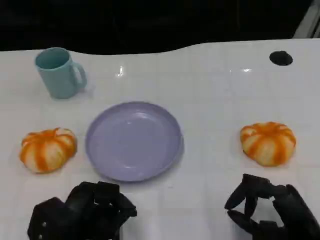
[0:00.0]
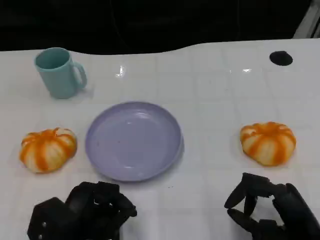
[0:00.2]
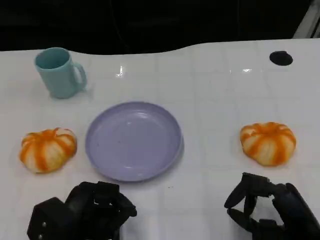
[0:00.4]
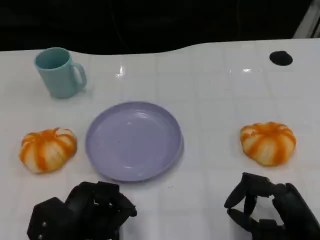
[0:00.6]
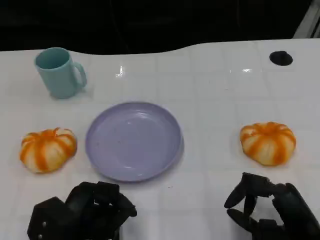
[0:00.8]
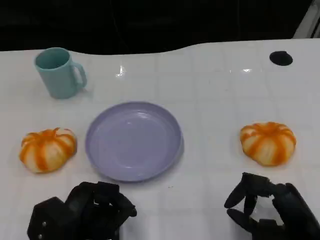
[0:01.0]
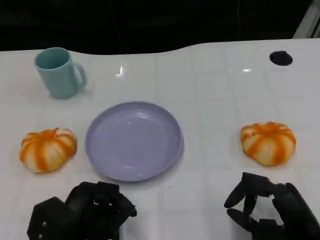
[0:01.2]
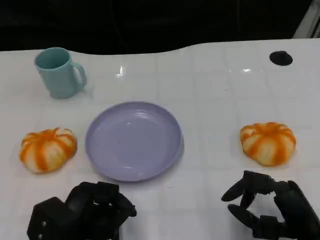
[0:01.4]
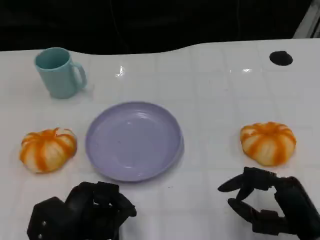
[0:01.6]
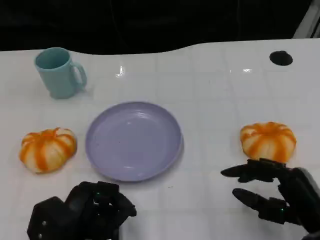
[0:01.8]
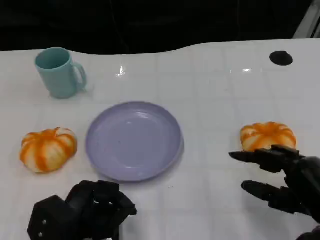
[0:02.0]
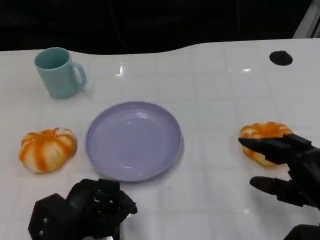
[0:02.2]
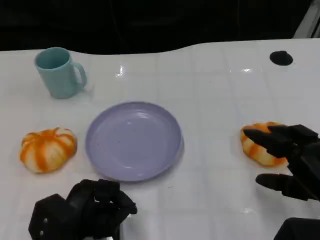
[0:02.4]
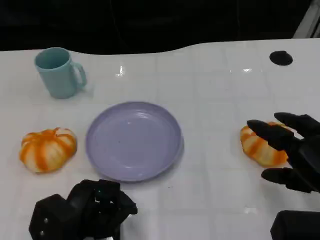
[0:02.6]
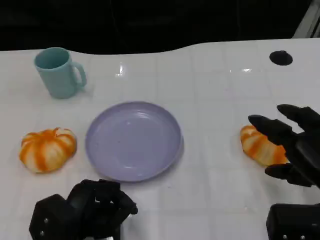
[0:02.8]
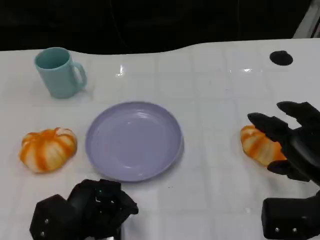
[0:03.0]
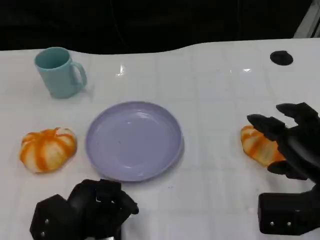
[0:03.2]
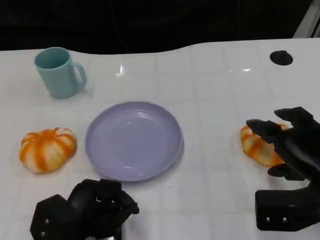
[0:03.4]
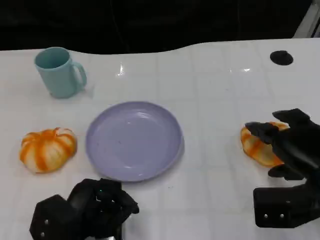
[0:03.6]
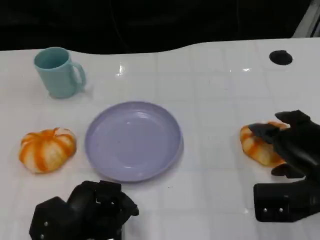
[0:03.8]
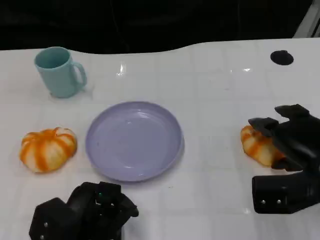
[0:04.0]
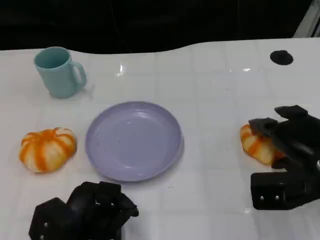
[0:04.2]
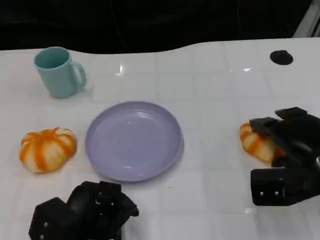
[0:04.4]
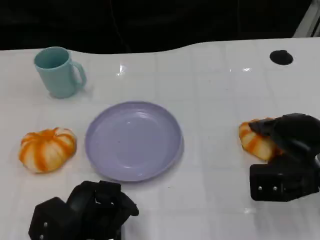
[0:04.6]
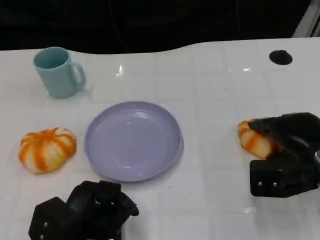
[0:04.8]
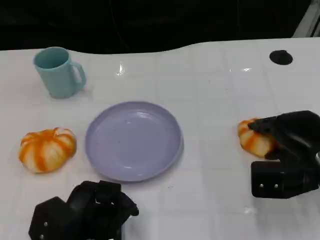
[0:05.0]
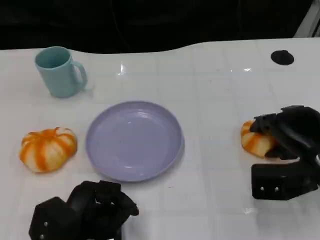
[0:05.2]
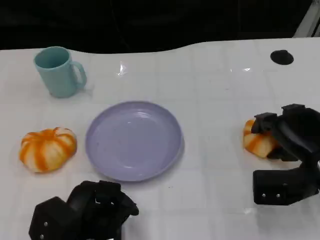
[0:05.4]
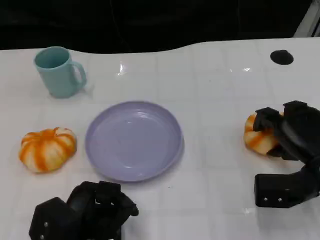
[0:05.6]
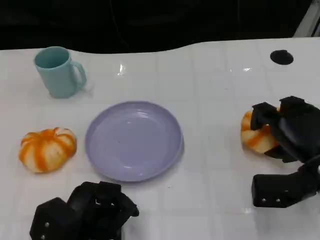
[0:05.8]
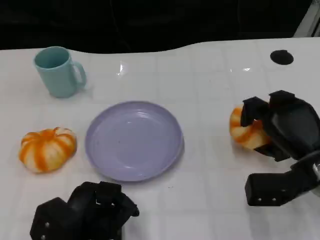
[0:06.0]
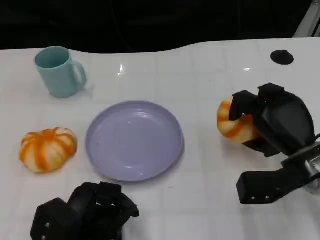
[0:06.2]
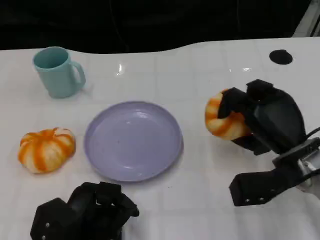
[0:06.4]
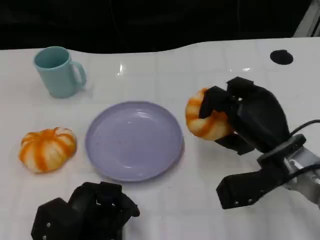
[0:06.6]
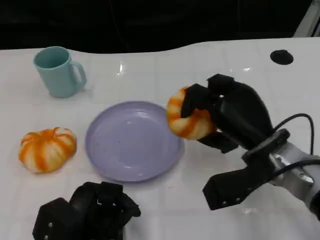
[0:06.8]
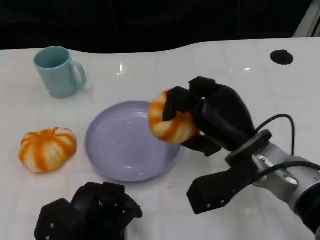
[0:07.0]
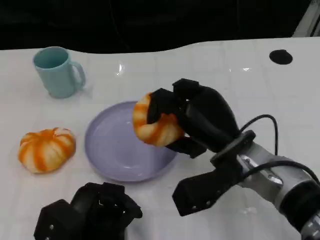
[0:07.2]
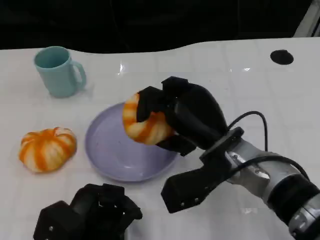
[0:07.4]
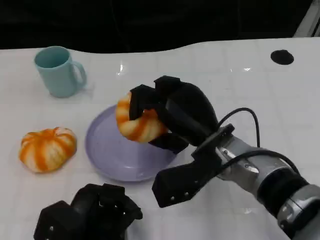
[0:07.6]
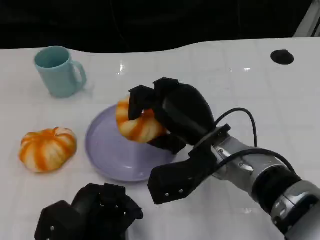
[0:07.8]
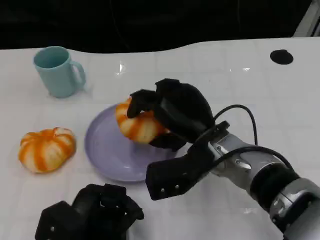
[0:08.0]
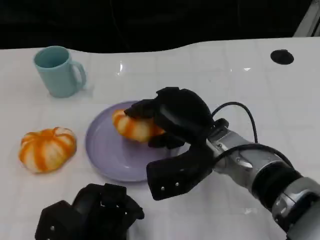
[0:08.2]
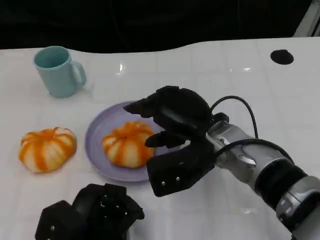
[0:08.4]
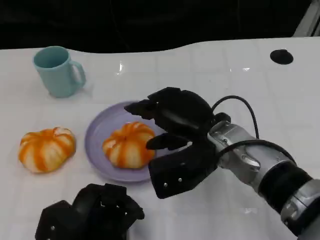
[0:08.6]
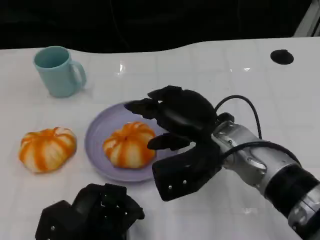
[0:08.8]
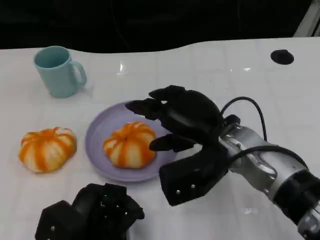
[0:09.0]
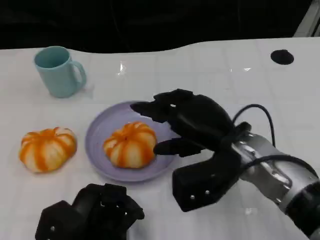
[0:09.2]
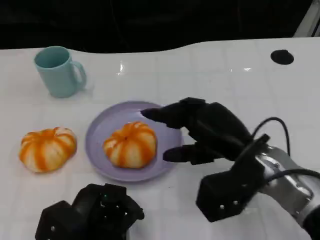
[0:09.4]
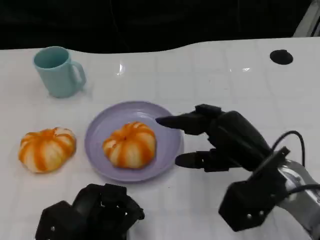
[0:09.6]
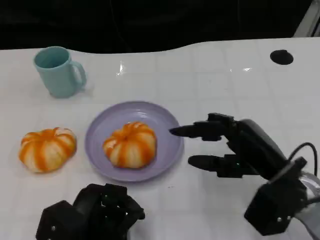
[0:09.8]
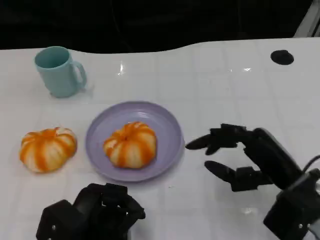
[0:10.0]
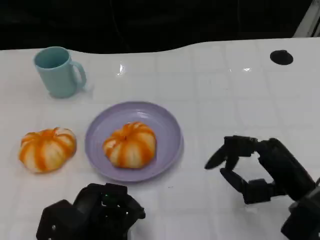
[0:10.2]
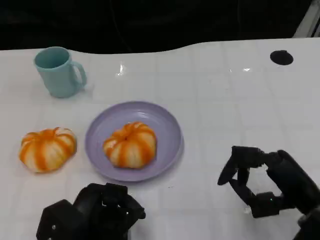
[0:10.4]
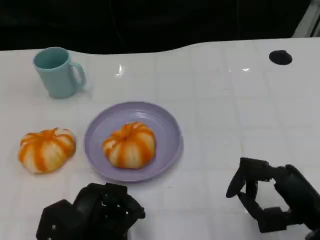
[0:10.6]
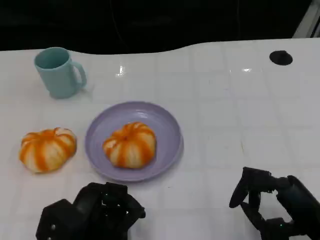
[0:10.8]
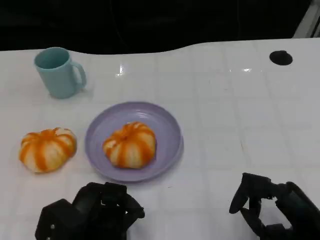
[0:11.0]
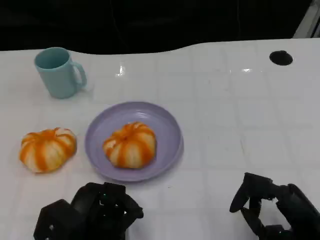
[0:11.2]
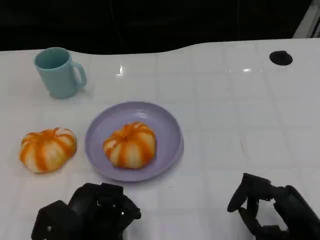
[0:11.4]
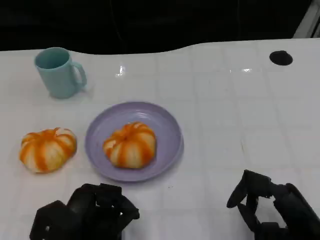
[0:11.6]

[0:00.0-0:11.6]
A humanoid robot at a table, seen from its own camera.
Task of the whole recording: Grasp the bread from the table and place it into the plate.
0:00.0 to 0:01.4: The two hands keep their place.
0:01.4 to 0:02.8: The right hand goes approximately 5 cm upward.
0:02.8 to 0:04.4: The right hand goes some 5 cm forward.
0:05.8 to 0:07.2: The right hand travels to the left by approximately 15 cm.
0:08.8 to 0:10.2: The right hand shifts about 15 cm to the right and backward.
0:10.2 to 0:11.6: The right hand is displaced backward by about 5 cm.

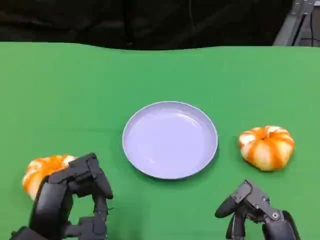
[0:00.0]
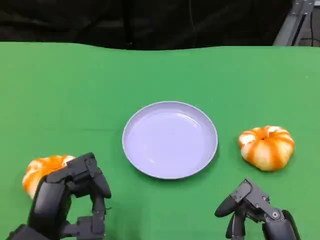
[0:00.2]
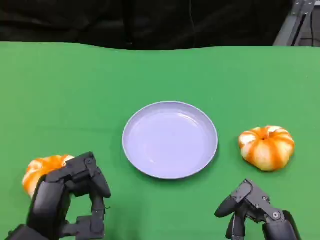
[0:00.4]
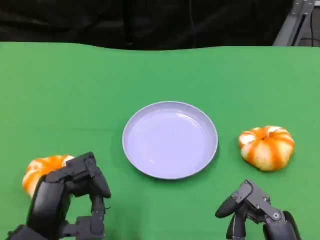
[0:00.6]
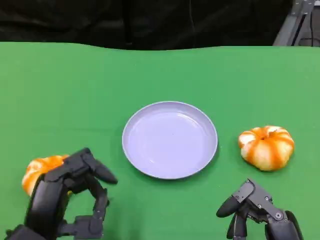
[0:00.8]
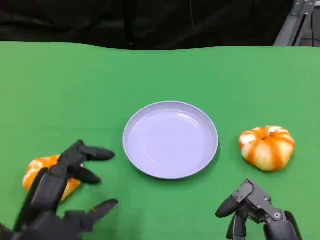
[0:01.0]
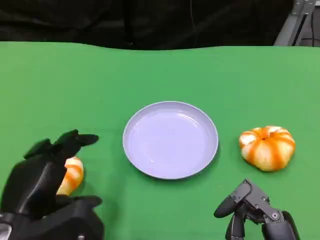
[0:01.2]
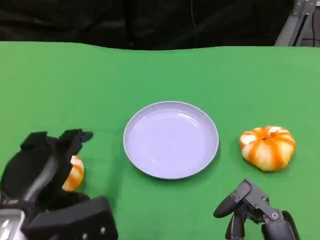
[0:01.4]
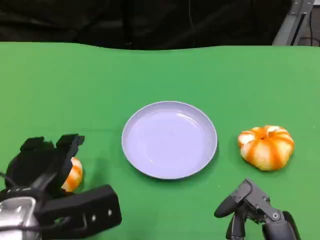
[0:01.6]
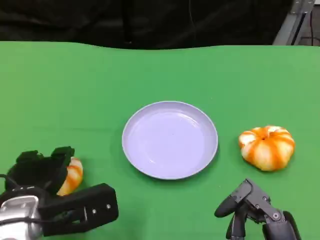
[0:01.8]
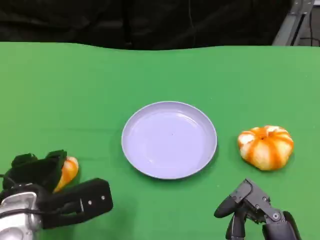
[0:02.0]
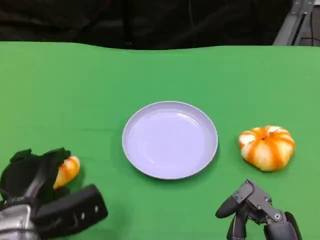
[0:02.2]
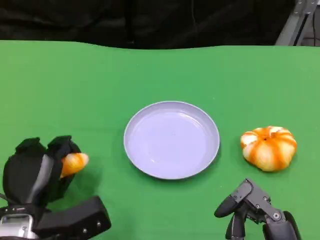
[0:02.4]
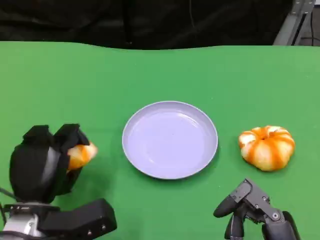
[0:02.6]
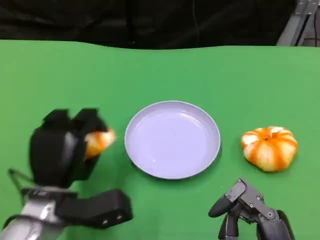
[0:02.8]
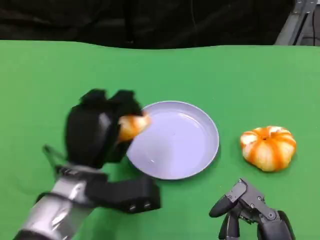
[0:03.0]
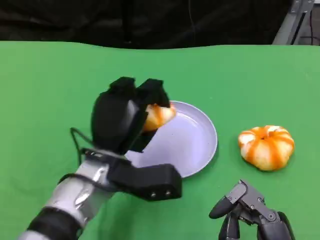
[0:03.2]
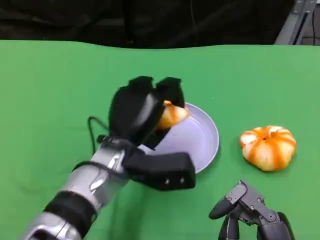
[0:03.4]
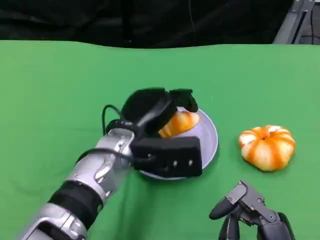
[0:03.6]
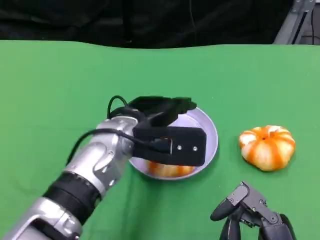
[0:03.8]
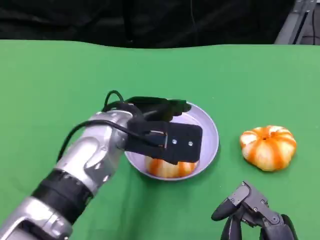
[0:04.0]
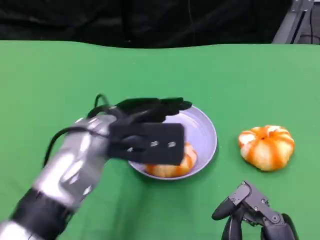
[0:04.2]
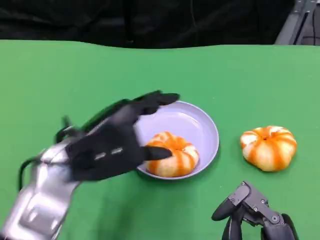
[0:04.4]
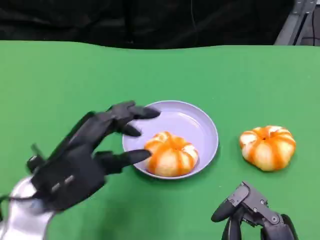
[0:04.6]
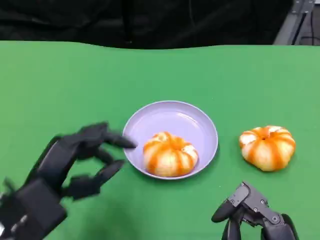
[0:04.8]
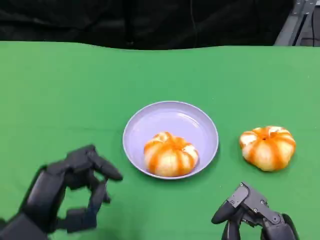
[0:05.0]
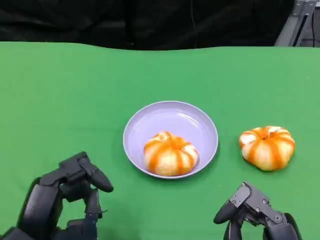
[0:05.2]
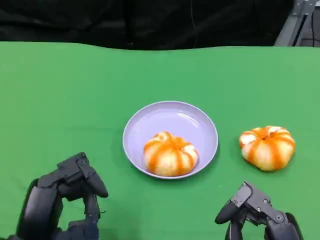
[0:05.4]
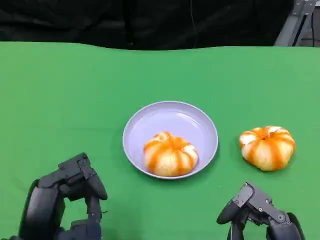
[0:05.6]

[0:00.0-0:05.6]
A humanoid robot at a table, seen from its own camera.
Task of the whole recording: Grasp the bread from the table and place it into the plate.
0:00.0 to 0:01.4: The left hand shifts by about 5 cm.
0:01.4 to 0:02.8: The left hand travels forward and downward by approximately 10 cm.
0:02.8 to 0:04.2: The left hand shifts about 10 cm upward and to the right.
0:04.2 to 0:05.6: The left hand is displaced backward, to the left and downward by approximately 20 cm.
